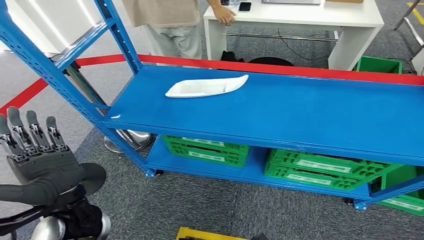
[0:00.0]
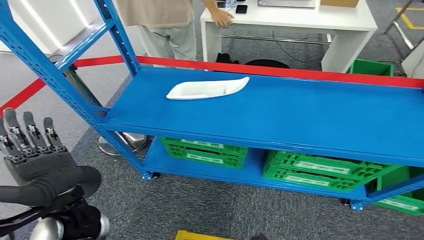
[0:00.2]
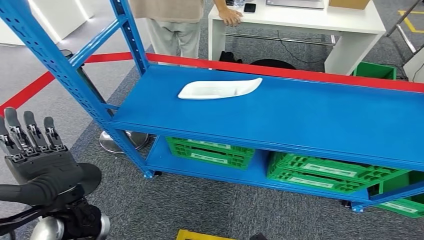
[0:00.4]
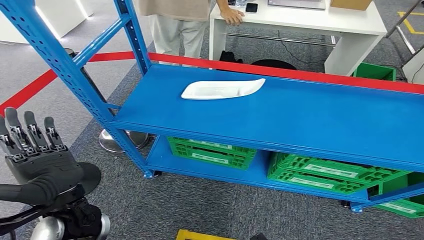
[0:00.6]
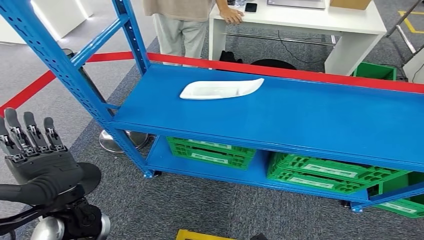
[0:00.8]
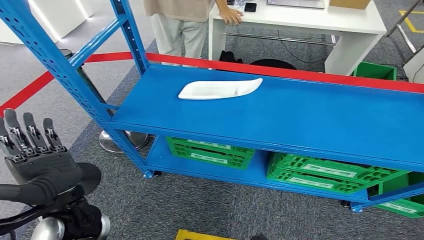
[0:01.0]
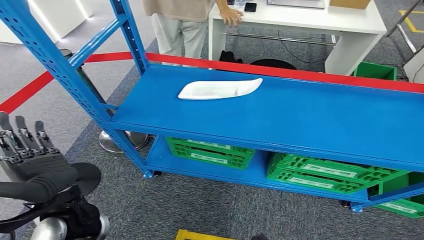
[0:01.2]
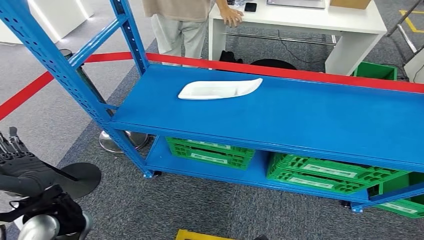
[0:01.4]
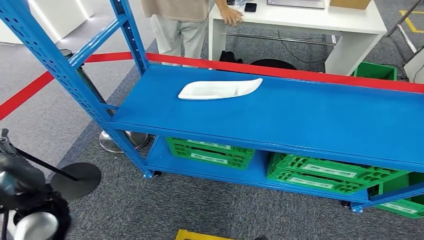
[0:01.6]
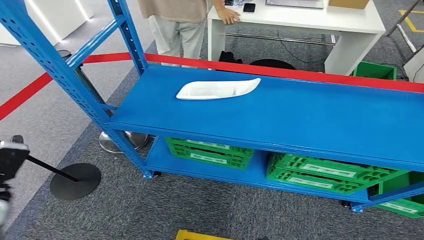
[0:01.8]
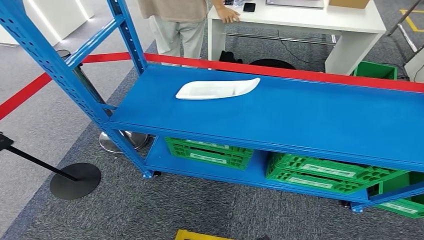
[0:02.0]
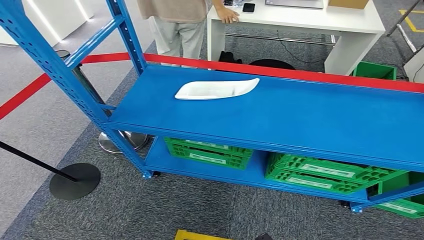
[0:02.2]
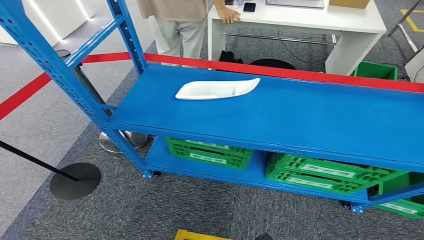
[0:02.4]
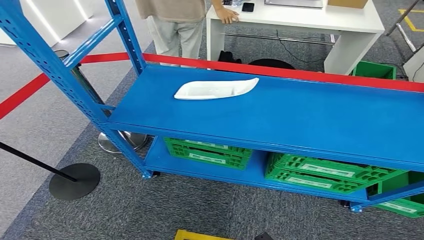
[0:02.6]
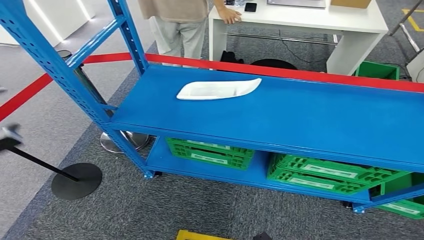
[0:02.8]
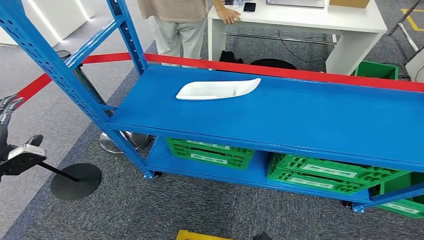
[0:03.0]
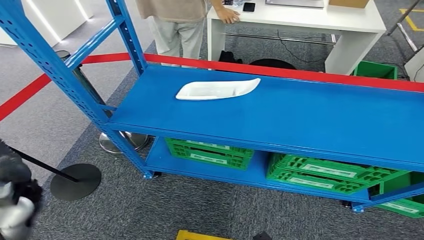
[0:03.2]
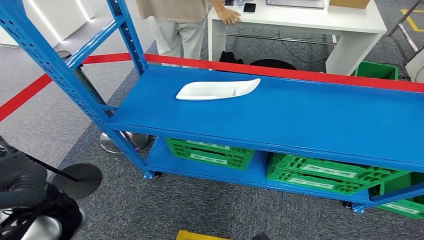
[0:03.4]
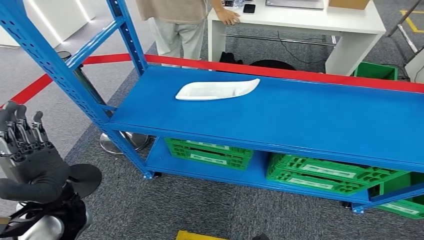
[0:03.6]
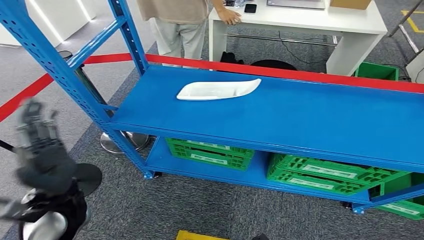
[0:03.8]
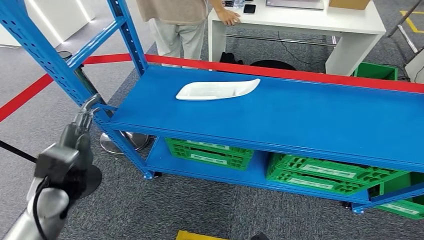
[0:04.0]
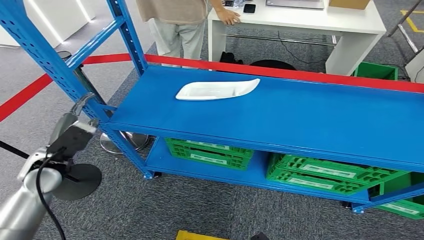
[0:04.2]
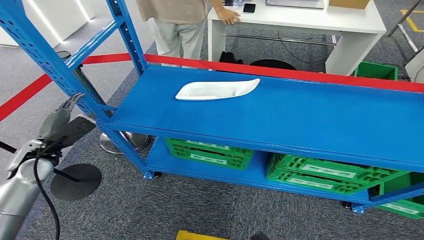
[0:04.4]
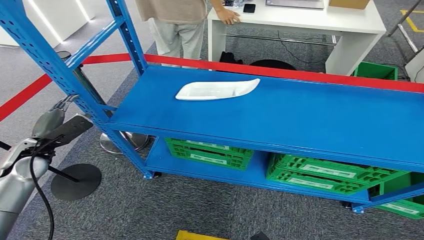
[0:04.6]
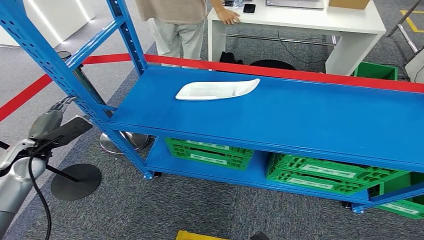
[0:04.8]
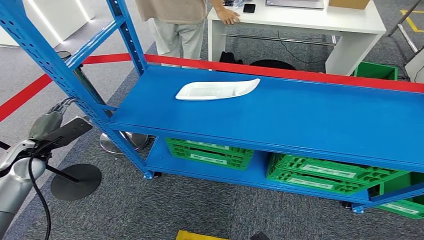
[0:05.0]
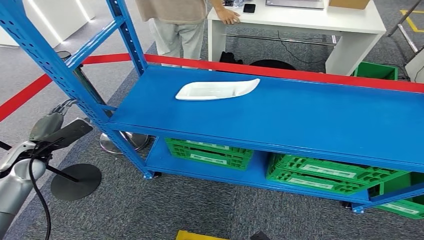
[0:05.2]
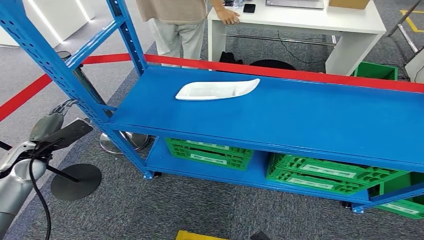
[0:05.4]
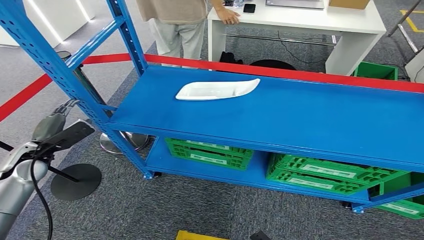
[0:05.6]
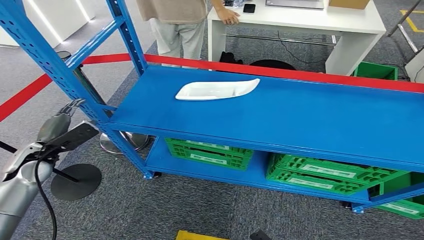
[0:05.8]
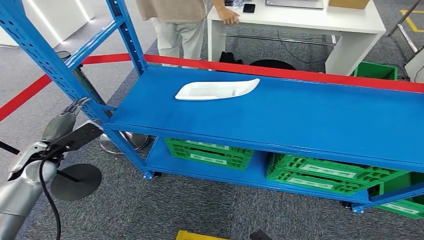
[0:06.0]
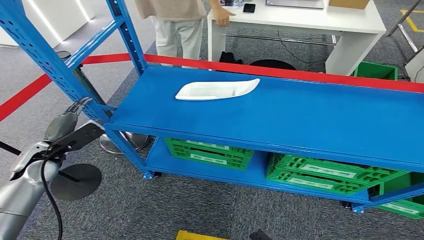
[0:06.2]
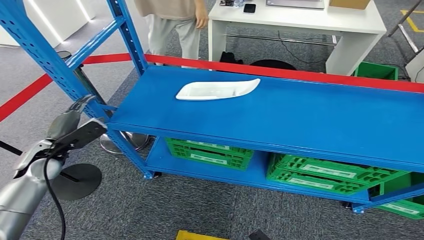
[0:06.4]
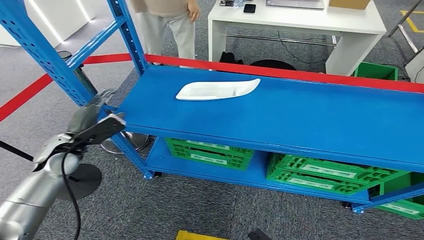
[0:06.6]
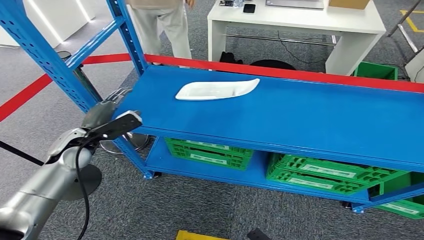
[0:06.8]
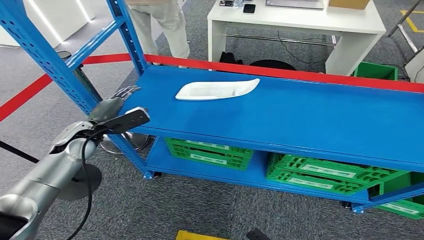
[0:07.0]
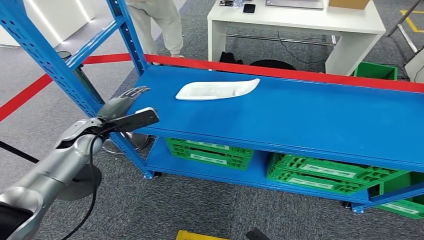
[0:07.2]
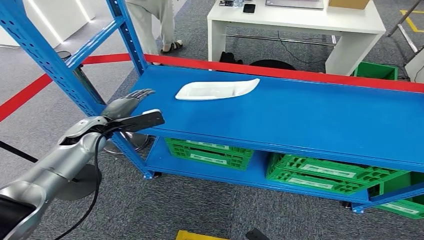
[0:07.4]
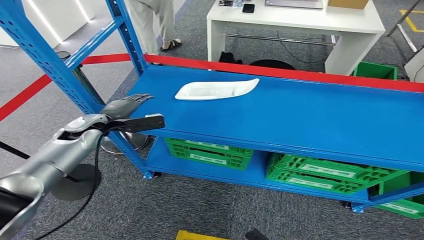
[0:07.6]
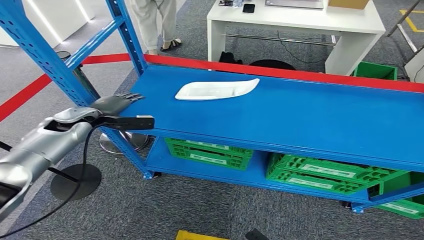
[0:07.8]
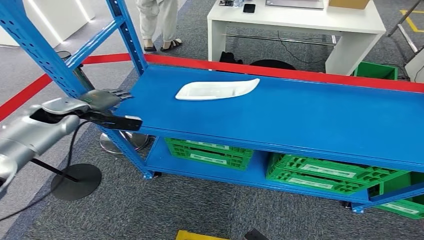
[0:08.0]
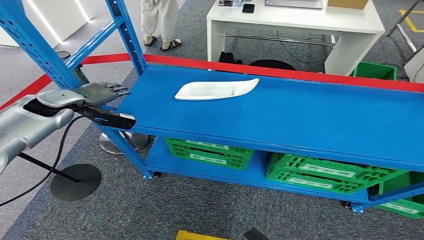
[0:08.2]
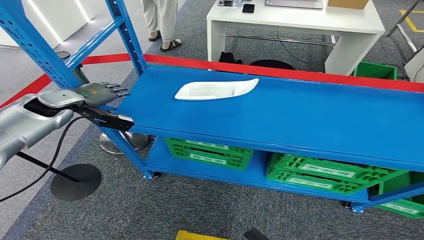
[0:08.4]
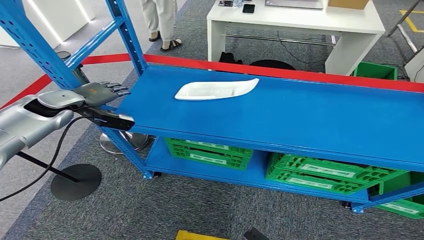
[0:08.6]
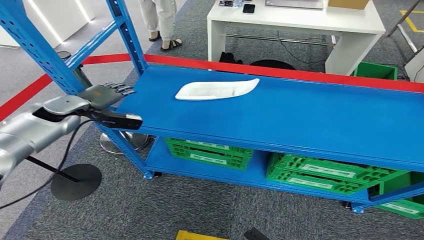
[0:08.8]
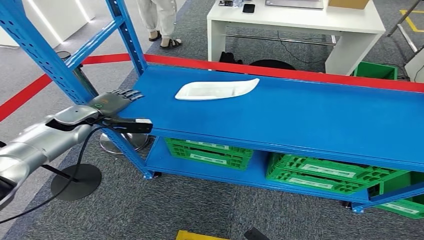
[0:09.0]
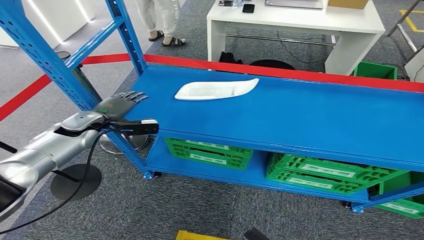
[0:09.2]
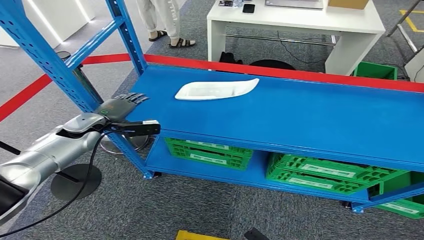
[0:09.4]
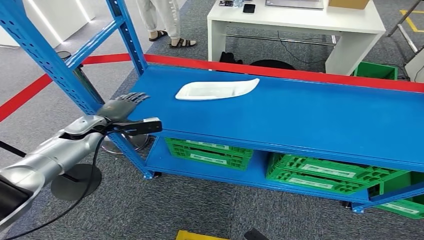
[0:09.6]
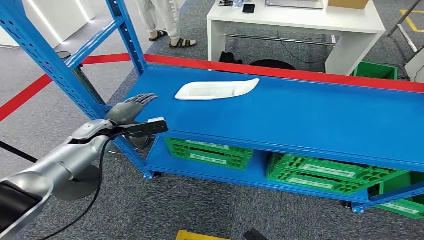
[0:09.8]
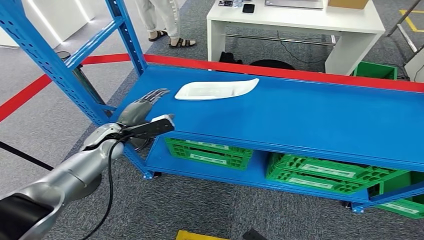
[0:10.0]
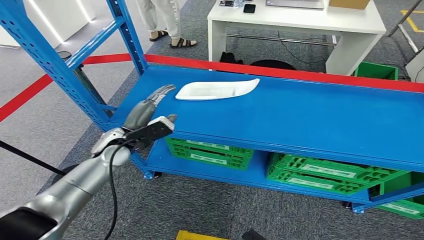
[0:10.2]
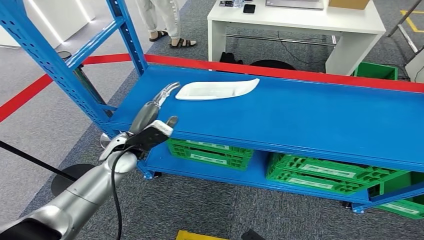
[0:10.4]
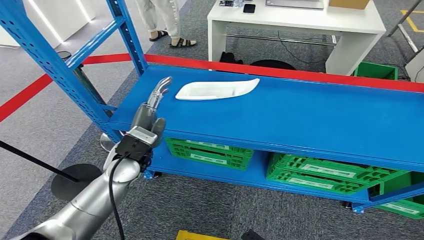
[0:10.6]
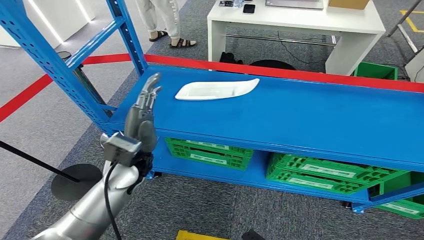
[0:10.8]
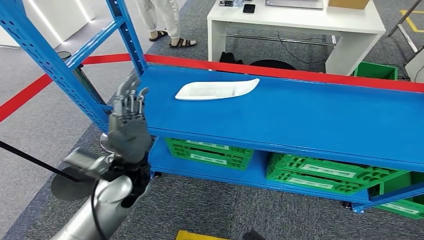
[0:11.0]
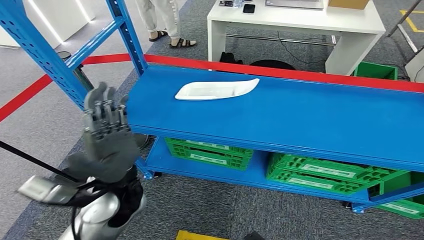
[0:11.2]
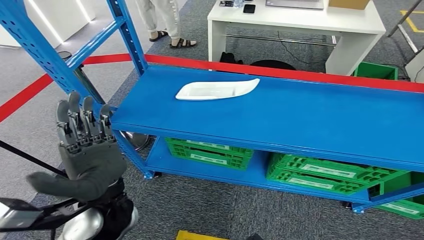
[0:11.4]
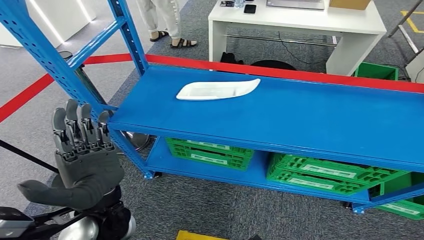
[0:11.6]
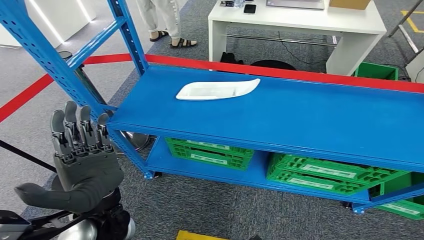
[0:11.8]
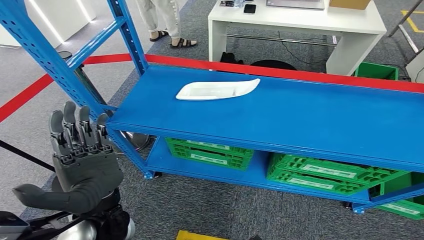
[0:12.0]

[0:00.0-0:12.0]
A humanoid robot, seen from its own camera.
0:01.6 to 0:03.0: The left hand heads to the left, covering about 20 cm.
0:03.0 to 0:04.4: The left hand heads forward, covering some 10 cm, and reaches approximately 25 cm to the right, then returns.
0:04.4 to 0:06.0: The hands make only small movements.
0:06.0 to 0:07.6: The left hand shifts roughly 15 cm forward and to the right.
0:07.6 to 0:09.0: The left hand moves roughly 10 cm upward and comes back.
0:09.0 to 0:10.4: The left hand is displaced to the right and backward by some 20 cm.
0:10.4 to 0:12.0: The left hand is displaced backward by approximately 15 cm.

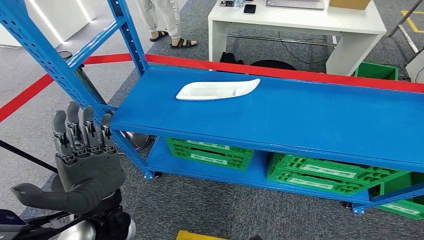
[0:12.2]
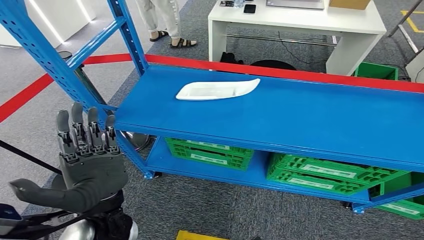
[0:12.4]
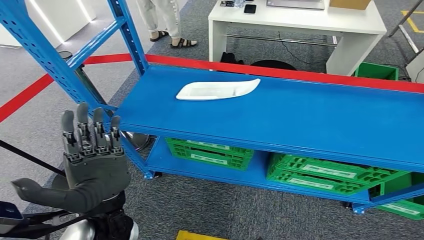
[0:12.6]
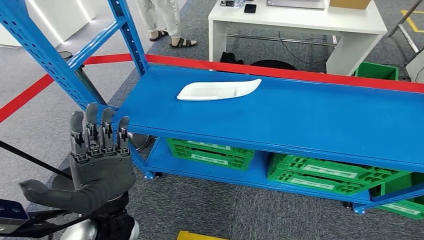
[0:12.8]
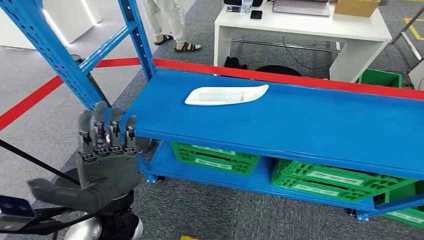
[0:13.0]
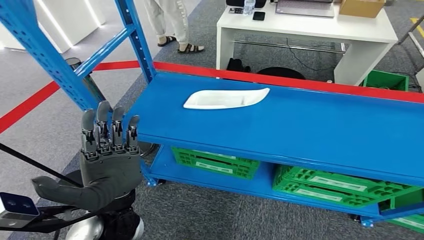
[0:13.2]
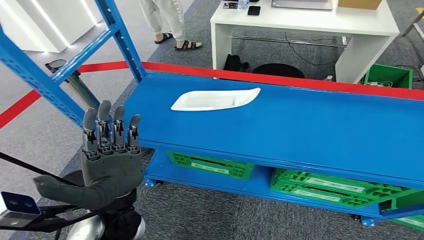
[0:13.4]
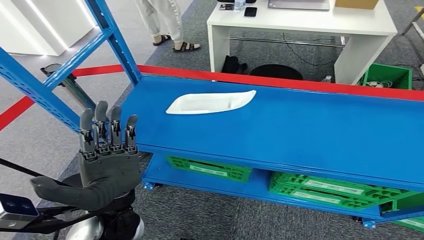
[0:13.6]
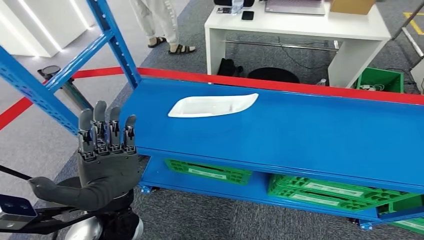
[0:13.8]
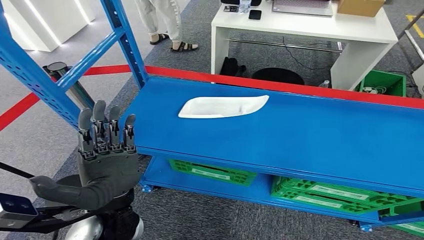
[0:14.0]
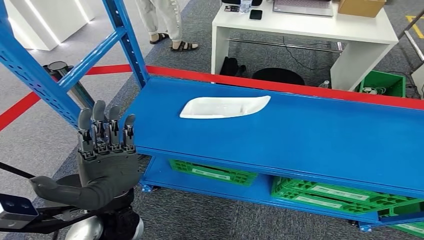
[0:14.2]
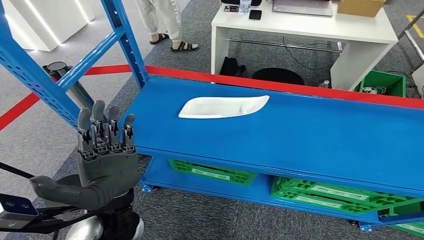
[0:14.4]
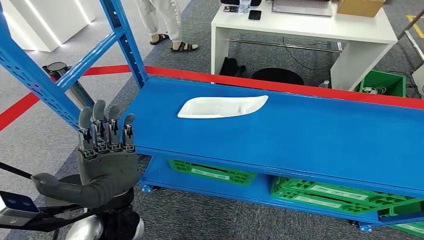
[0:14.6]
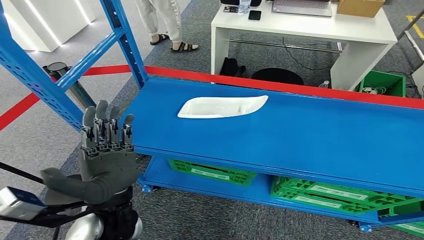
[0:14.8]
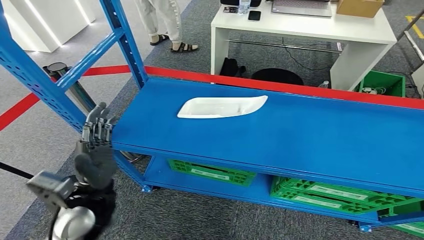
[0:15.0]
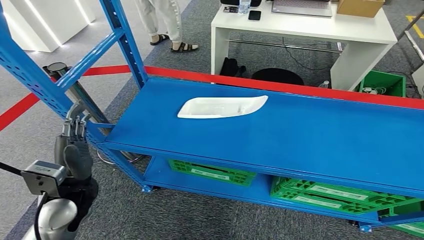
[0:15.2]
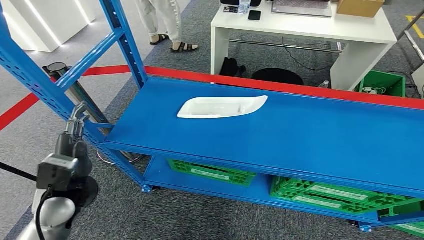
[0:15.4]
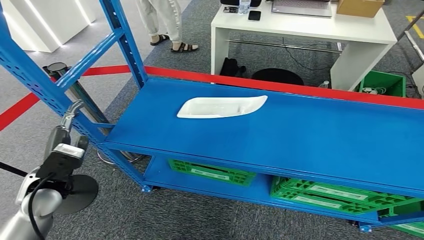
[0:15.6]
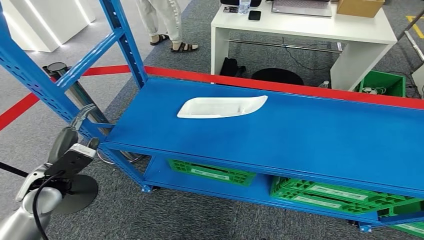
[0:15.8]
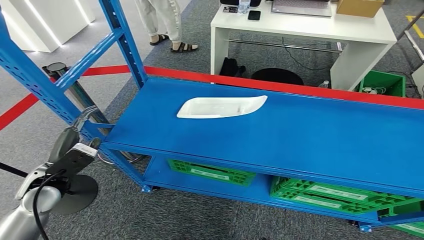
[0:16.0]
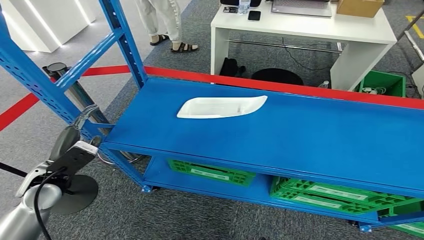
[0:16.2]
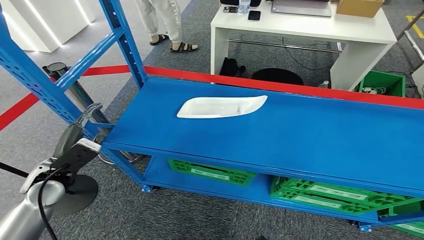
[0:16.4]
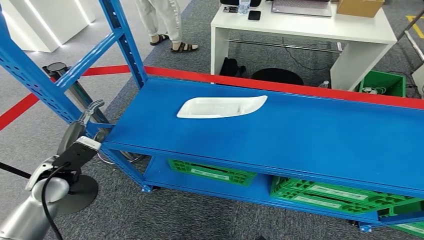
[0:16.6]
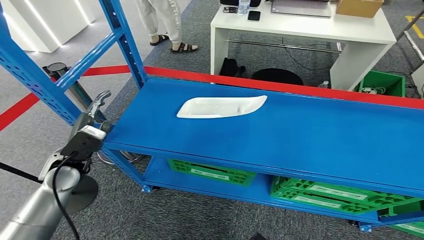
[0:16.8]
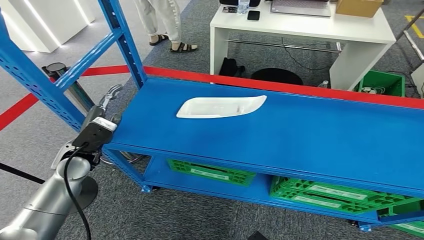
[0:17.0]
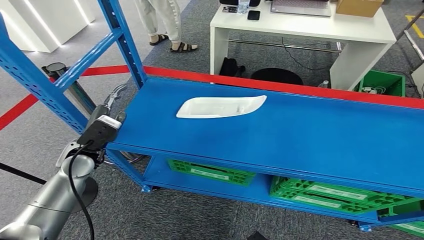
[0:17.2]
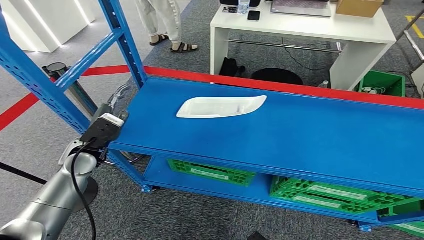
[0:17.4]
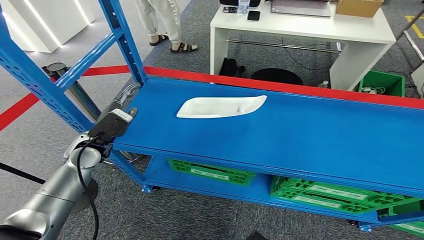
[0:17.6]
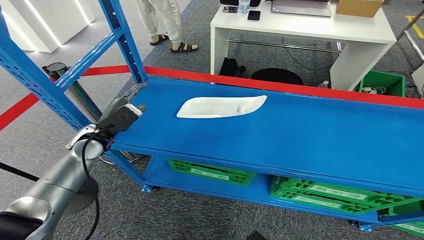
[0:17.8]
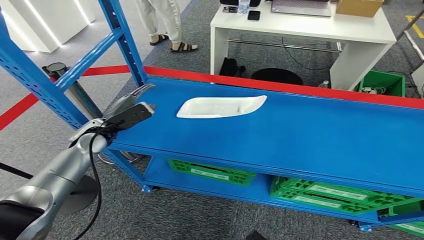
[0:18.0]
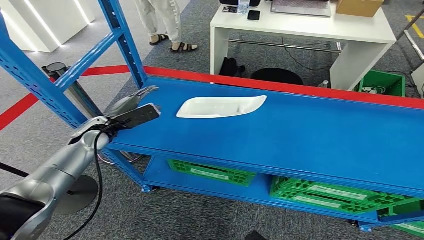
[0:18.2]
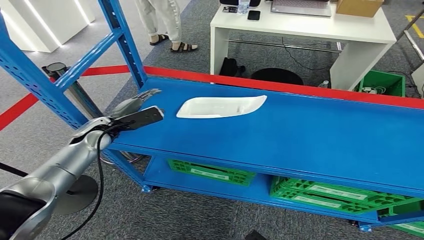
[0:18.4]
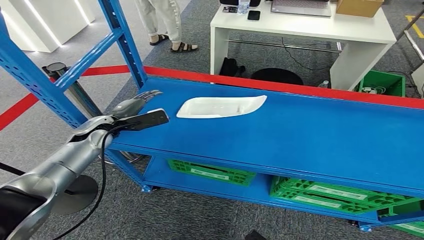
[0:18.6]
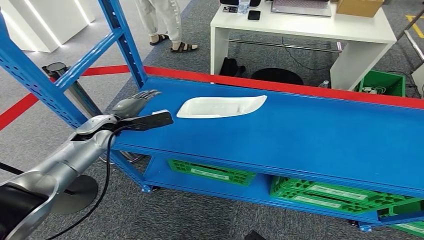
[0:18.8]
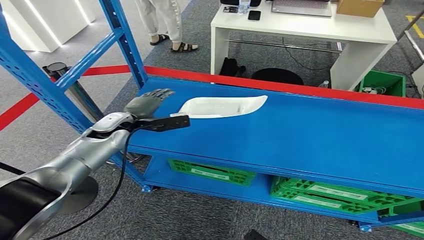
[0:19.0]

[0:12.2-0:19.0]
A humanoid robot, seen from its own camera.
0:15.0 to 0:16.2: The left hand moves to the left, roughly 15 cm.
0:16.2 to 0:17.6: The left hand travels forward and to the right by roughly 10 cm.
0:17.6 to 0:19.0: The left hand goes approximately 5 cm forward.
